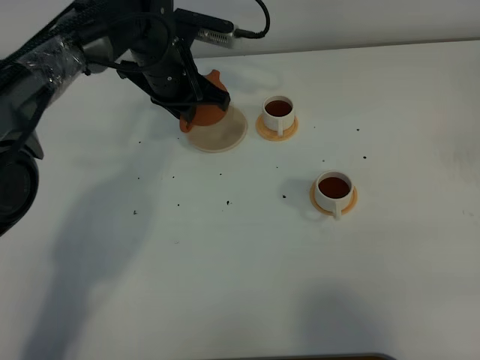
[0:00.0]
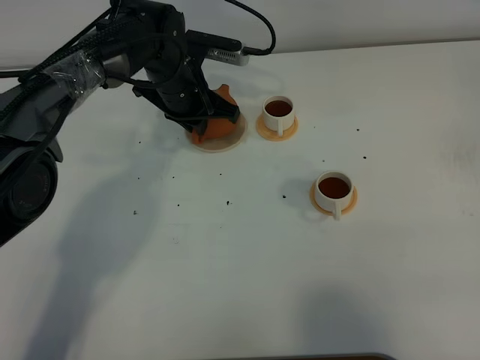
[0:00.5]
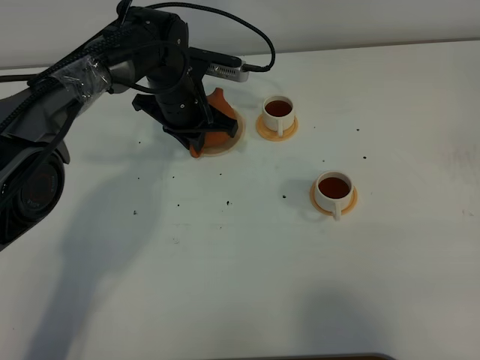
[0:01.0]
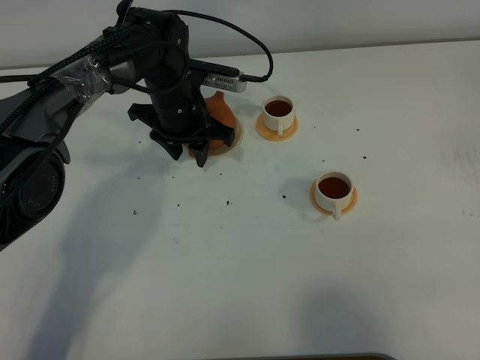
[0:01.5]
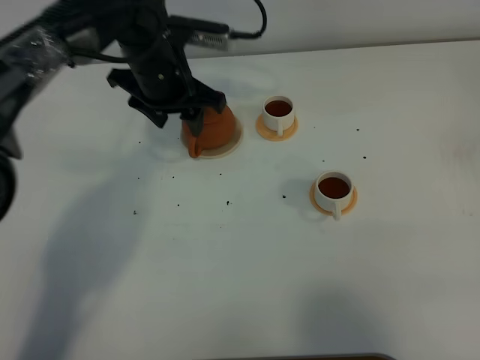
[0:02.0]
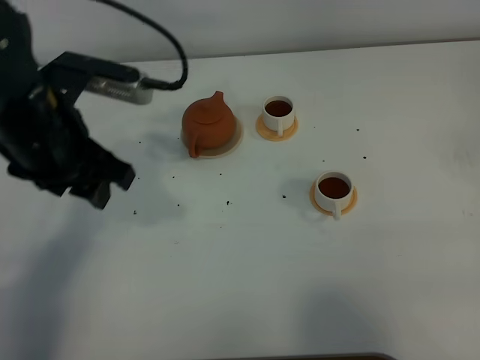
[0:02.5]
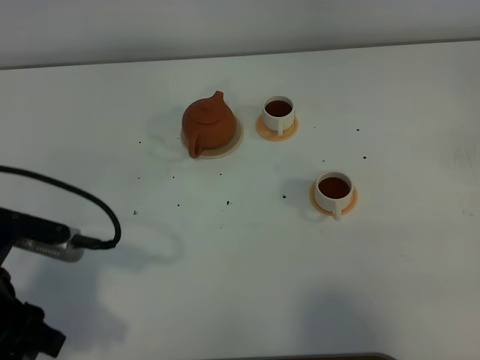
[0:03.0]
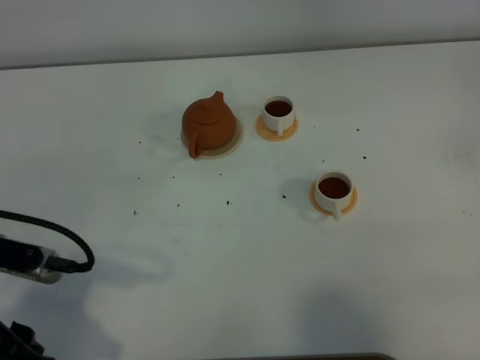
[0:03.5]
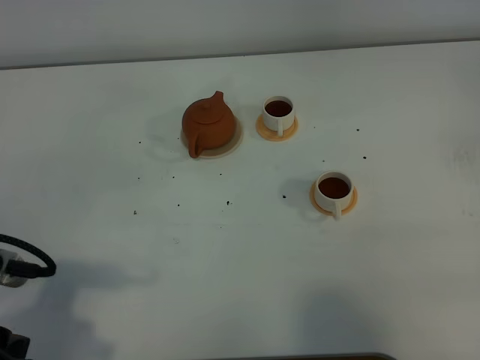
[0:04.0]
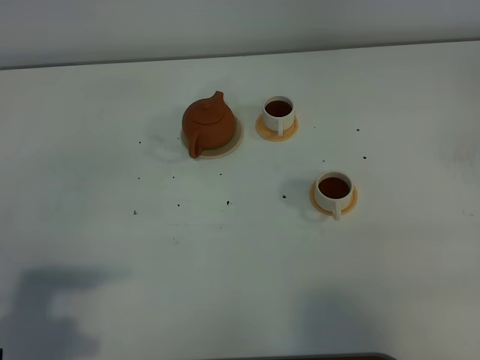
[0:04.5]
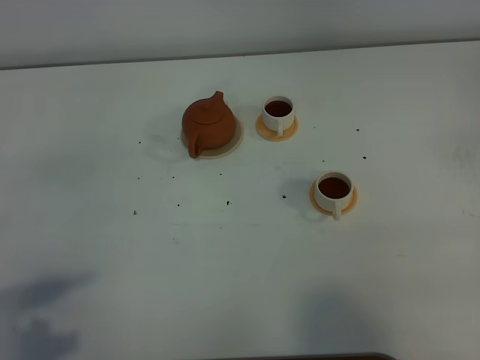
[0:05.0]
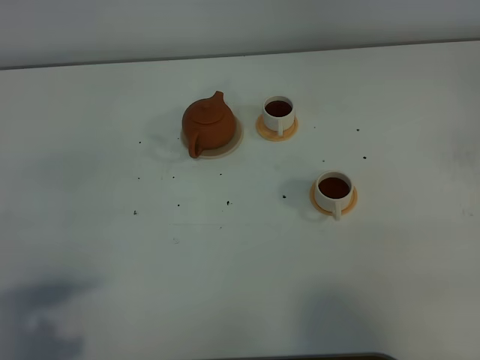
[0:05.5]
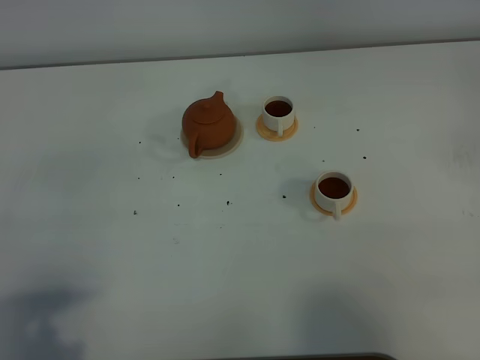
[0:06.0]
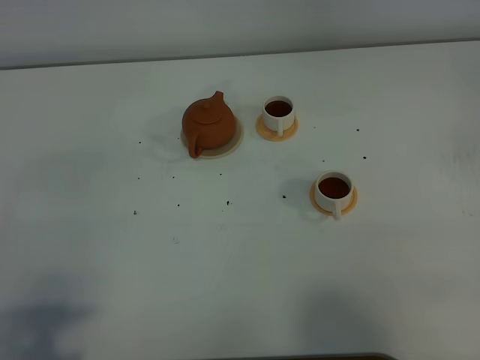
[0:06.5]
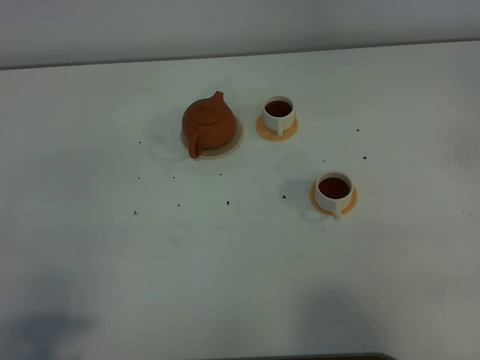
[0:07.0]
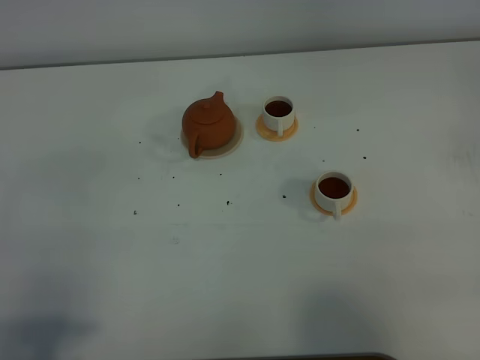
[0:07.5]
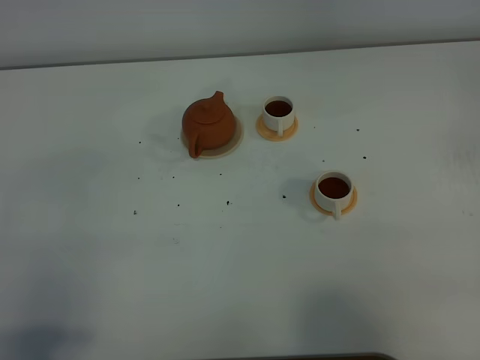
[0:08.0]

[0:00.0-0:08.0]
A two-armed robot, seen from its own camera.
Task of the whole recording: grasp the brown teapot and pour the tea into the two white teacups one by one, put the brown teapot back in its original place.
0:00.0 to 0:02.0: The left gripper changes place by roughly 5 cm, and opens its fingers.
0:02.0 to 0:04.0: The left gripper heads backward and to the left, covering approximately 35 cm.
0:04.0 to 0:06.0: The left gripper travels backward by approximately 5 cm.
